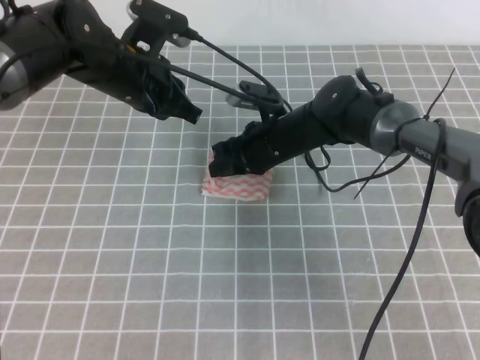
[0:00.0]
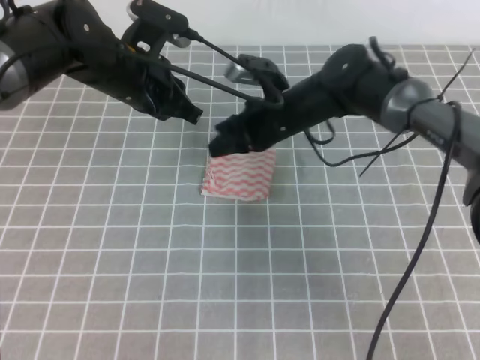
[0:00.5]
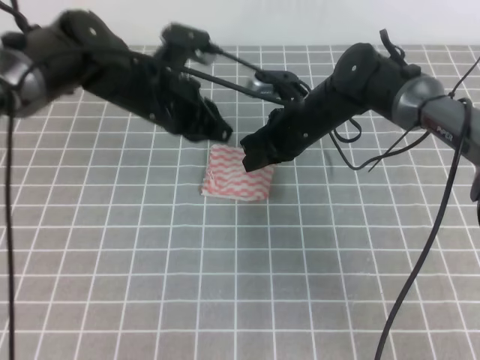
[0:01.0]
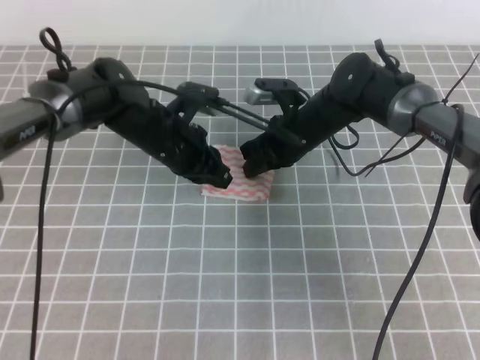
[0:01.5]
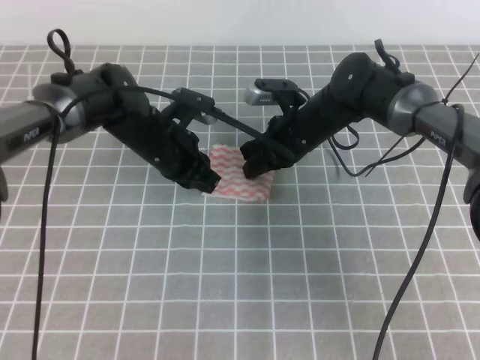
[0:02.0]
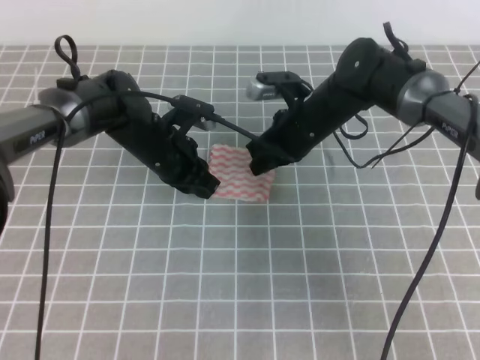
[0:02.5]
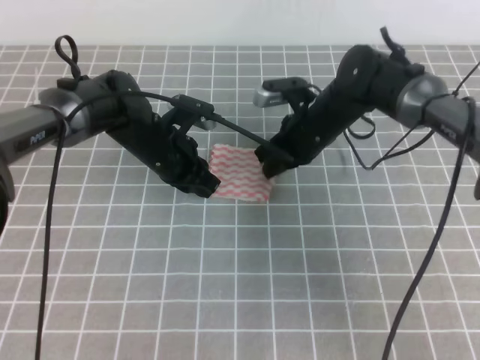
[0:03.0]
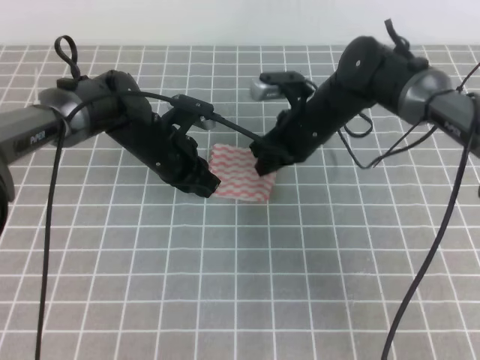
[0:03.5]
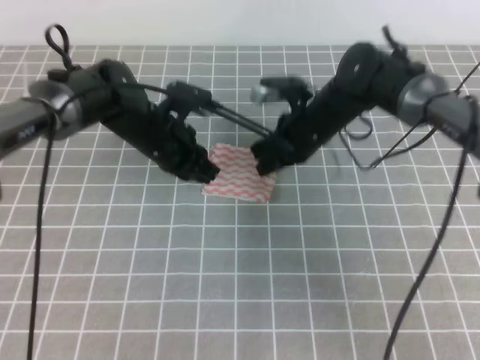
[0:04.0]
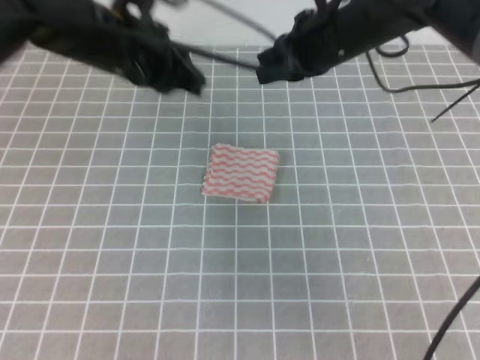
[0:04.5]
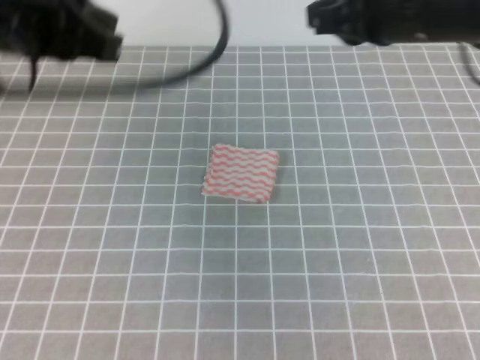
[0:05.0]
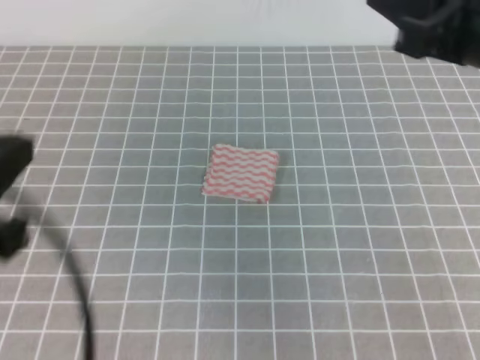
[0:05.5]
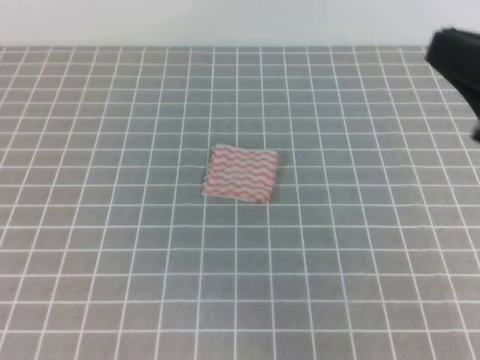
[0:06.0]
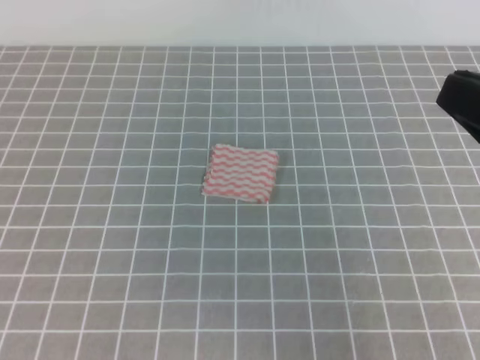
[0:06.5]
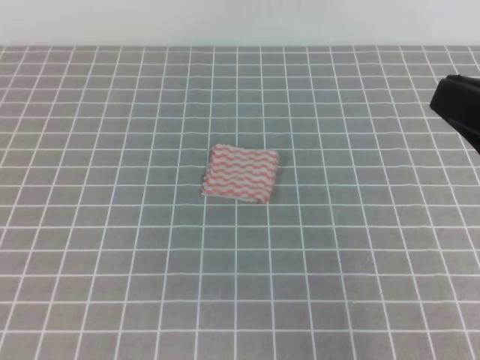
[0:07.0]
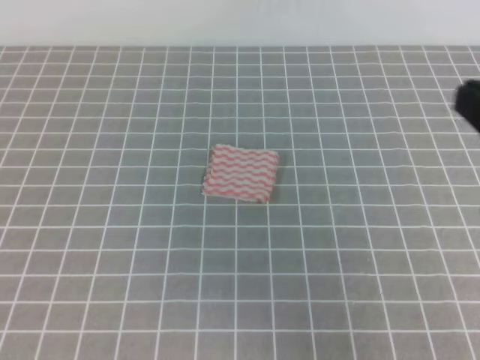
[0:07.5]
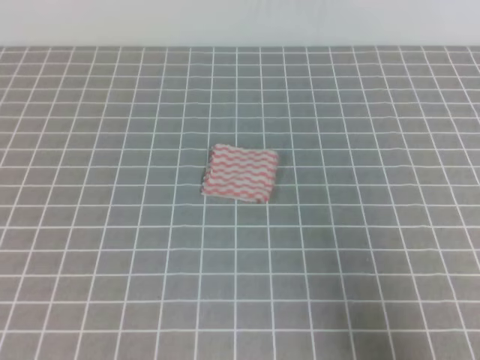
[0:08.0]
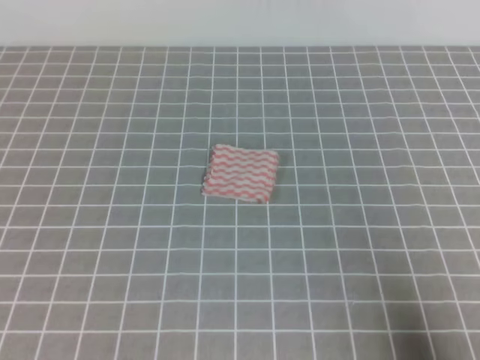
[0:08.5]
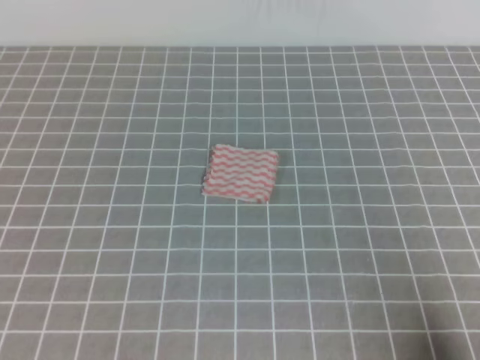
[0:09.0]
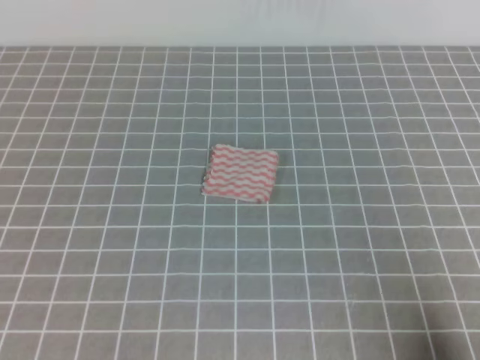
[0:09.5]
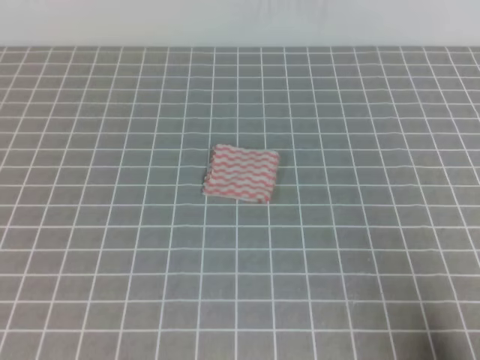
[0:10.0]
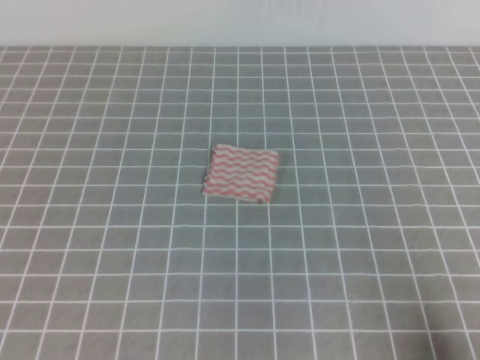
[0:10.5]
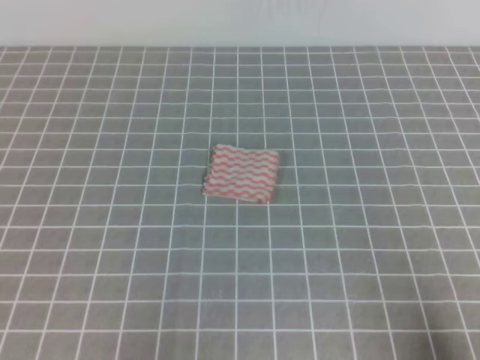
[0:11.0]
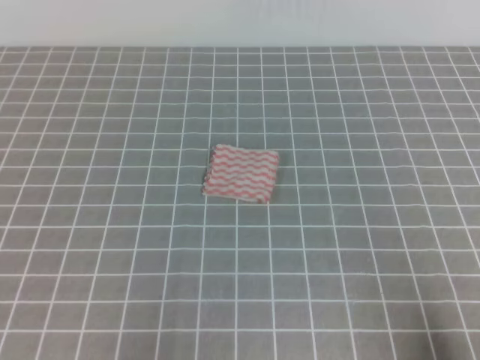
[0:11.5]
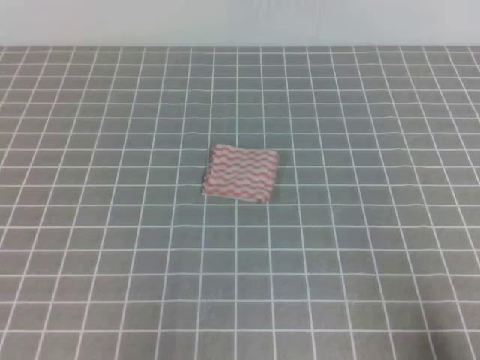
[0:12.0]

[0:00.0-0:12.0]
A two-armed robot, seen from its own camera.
0:00.0 to 0:02.0: The right gripper closes. The left gripper shifts roughly 10 cm downward.
0:02.0 to 0:04.0: There are only small adjustments of the grippers.
0:04.0 to 0:06.0: The left gripper heads backward, upward and to the left, covering approximately 40 cm. The right gripper shifts some 35 cm backward, upward and to the right.
0:06.0 to 0:08.0: The right gripper heads downward, backward and to the right, covering some 15 cm.
0:08.0 to 0:10.0: The right gripper moves downward, roughly 10 cm.

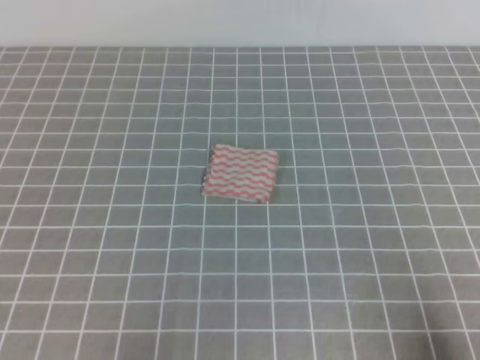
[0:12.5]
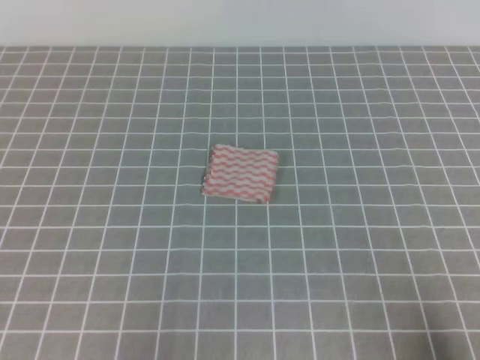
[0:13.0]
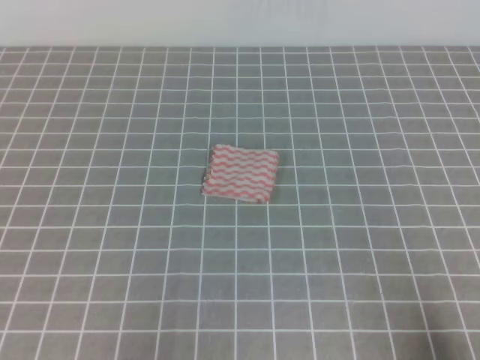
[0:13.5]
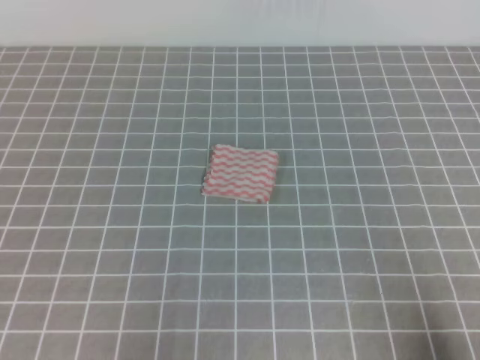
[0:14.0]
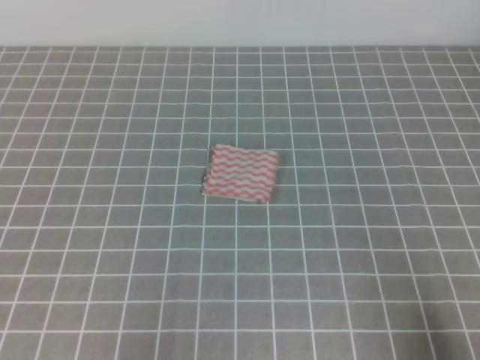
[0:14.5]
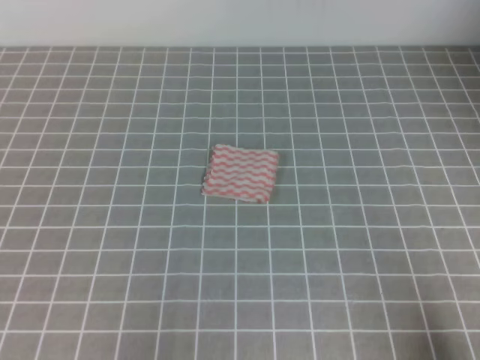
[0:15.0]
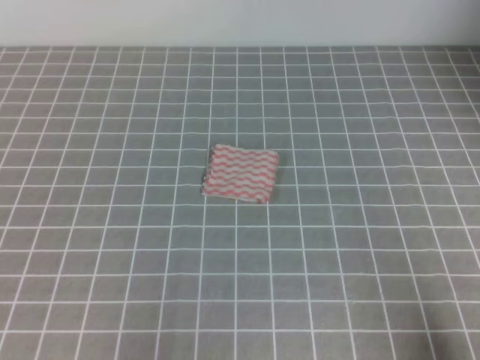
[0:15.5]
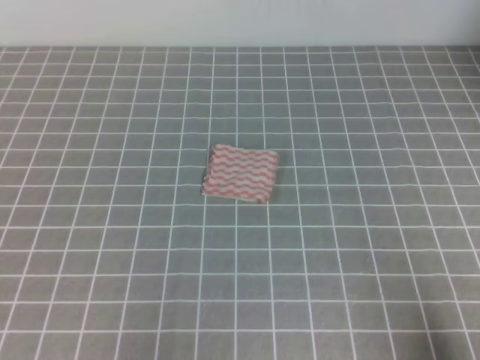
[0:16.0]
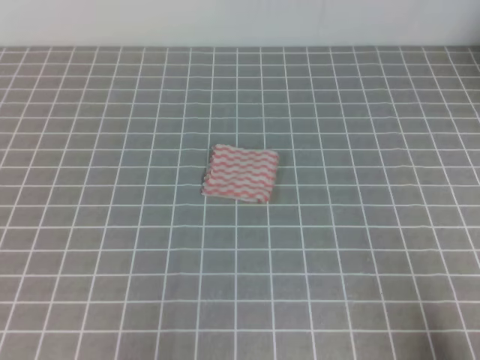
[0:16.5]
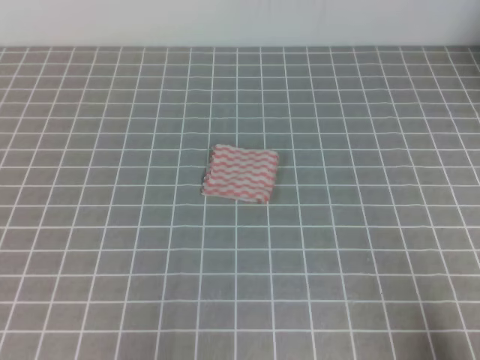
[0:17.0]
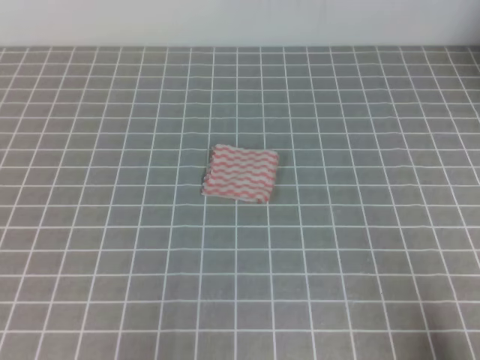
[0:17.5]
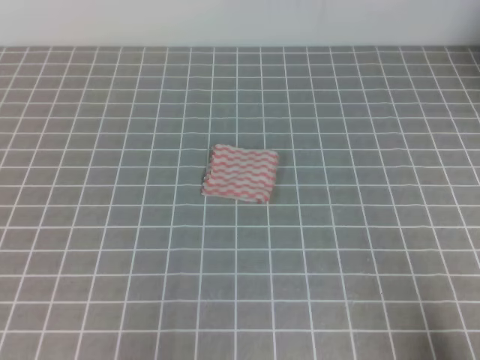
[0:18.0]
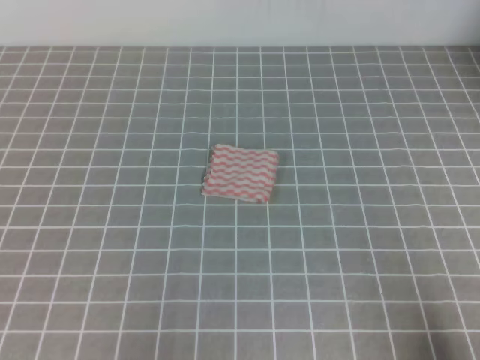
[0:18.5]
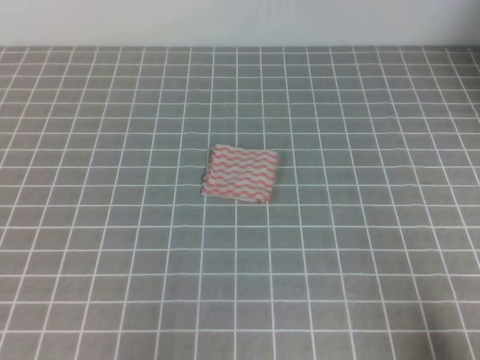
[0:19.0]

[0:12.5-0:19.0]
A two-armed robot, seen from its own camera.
Step, 0:12.5 to 0:19.0: Fold the towel.
0:12.5 to 0:19.0: Neither gripper changes place.
